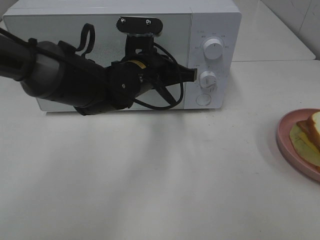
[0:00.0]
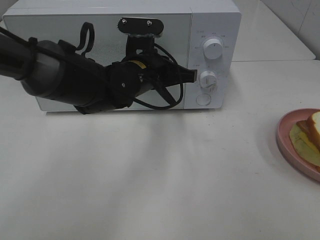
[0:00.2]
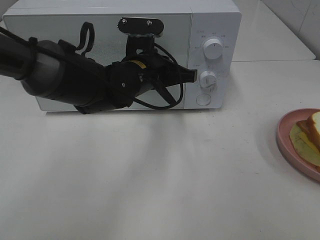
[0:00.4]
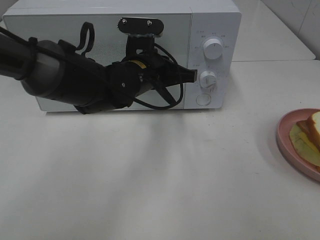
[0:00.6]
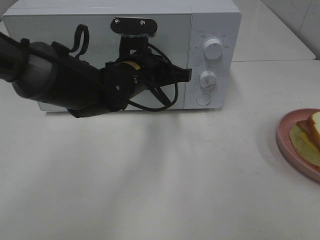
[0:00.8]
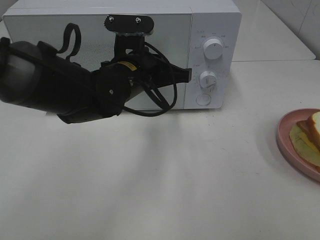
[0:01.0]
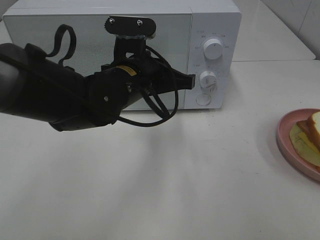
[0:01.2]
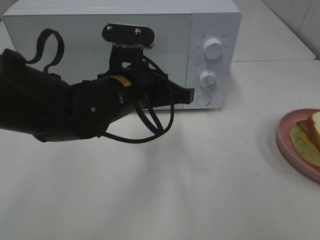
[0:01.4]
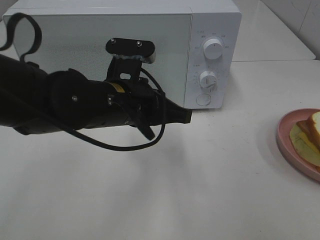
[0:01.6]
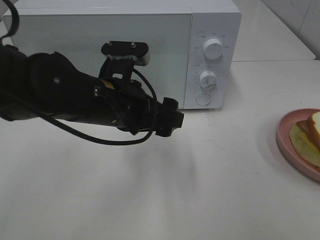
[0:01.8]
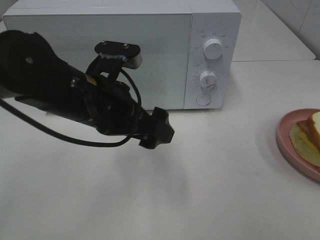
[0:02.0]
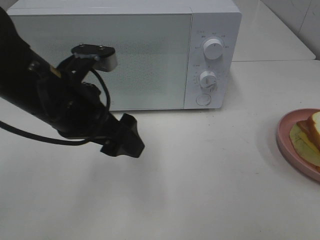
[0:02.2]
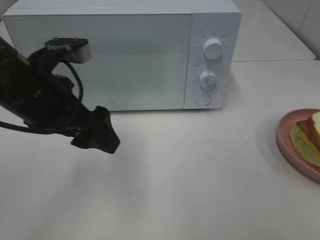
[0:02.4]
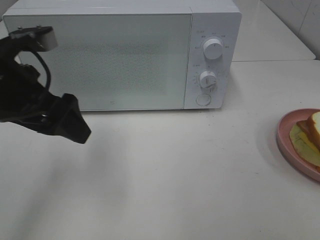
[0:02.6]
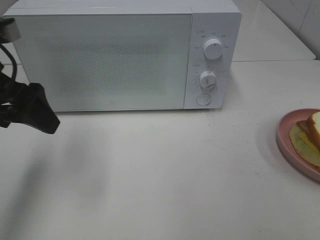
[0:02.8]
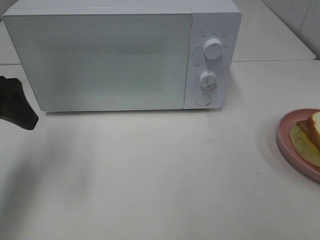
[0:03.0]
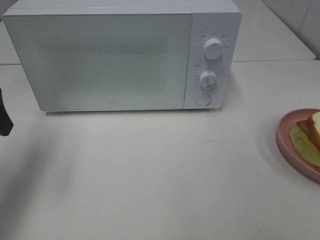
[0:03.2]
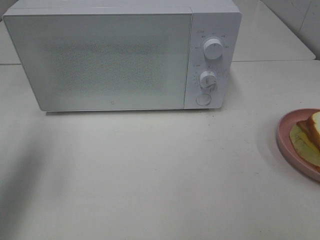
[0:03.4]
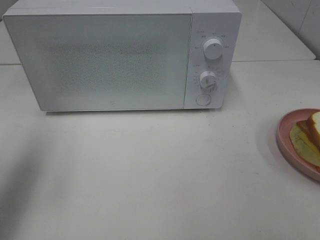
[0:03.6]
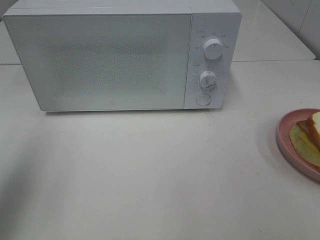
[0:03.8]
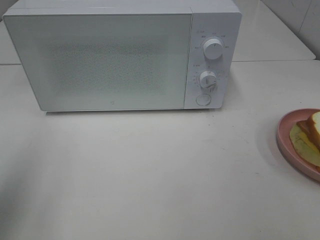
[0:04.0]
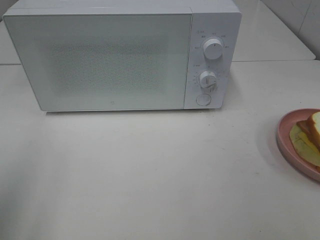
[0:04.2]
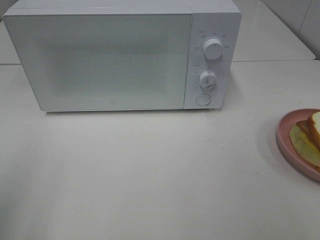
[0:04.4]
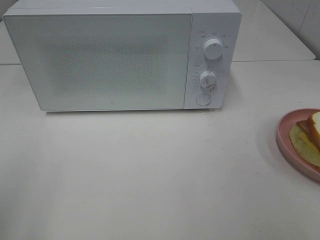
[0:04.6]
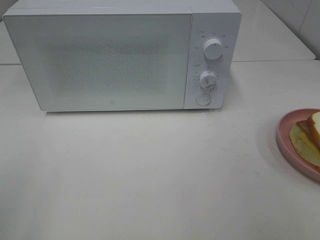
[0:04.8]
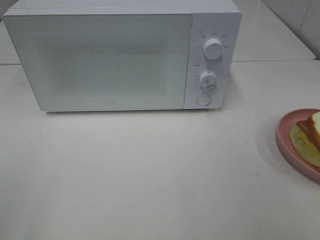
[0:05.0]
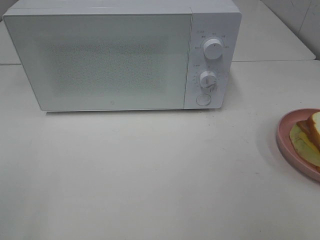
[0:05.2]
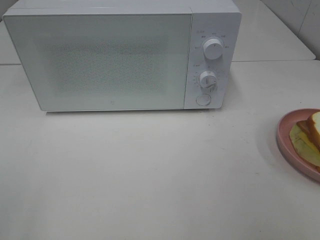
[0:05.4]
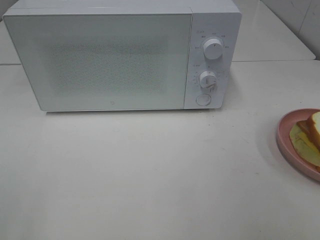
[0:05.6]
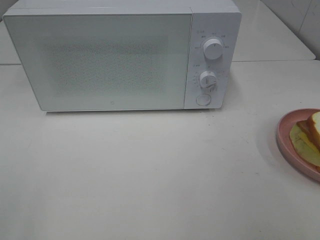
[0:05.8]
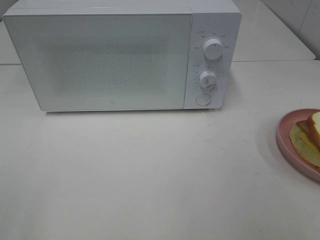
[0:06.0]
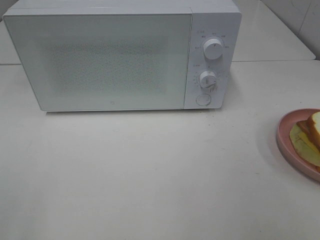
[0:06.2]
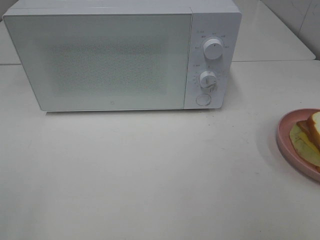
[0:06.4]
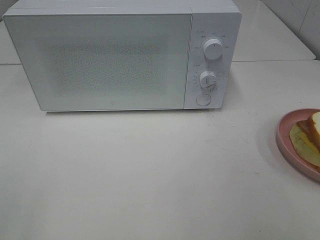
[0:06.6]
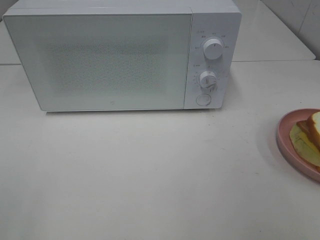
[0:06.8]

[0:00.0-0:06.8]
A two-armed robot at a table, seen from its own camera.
Task of the whole recording: Heat Sandwich.
0:00.0 to 0:01.4: The left gripper heads backward, covering roughly 5 cm.
0:01.4 to 0:02.8: The left gripper heads to the left and upward, covering roughly 20 cm, and opens up.
0:02.8 to 0:04.0: The left gripper shifts approximately 15 cm backward, to the left and upward.
0:04.0 to 0:05.4: The left gripper moves backward, approximately 15 cm.
0:05.4 to 0:06.8: Both grippers stay put.
